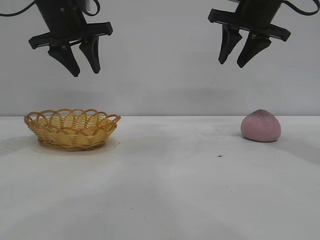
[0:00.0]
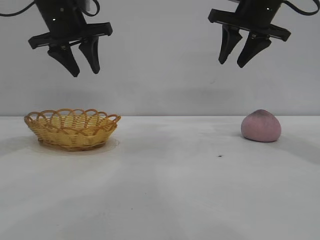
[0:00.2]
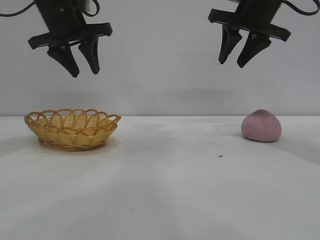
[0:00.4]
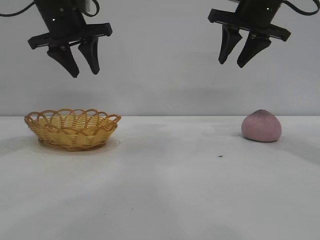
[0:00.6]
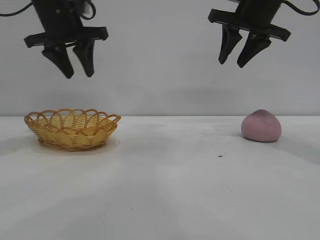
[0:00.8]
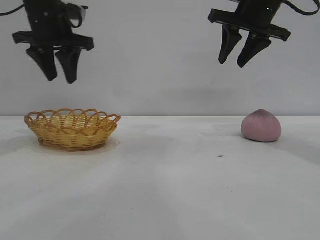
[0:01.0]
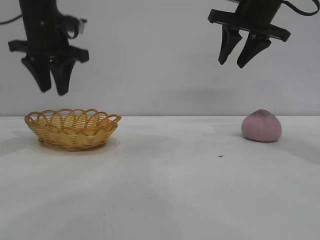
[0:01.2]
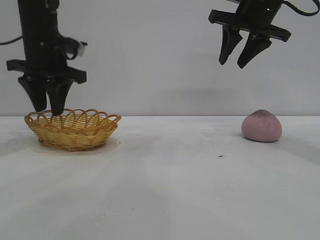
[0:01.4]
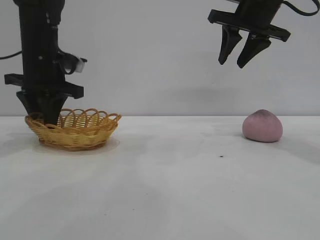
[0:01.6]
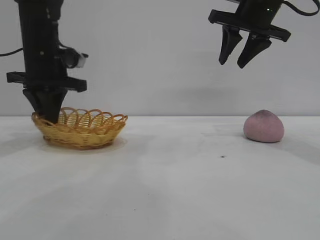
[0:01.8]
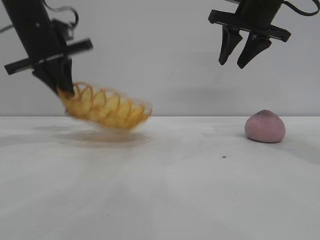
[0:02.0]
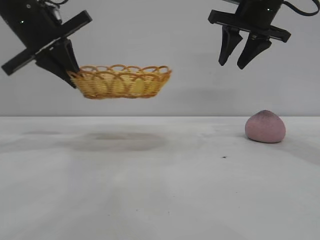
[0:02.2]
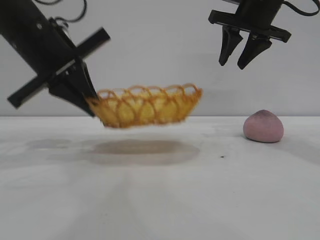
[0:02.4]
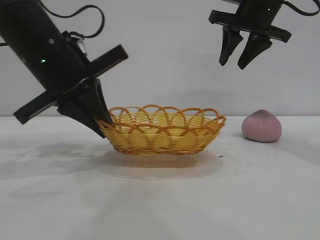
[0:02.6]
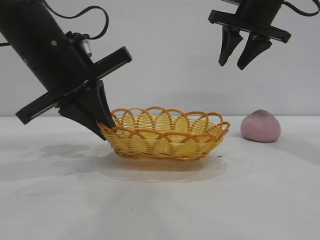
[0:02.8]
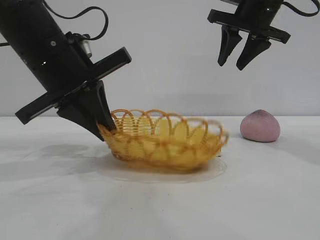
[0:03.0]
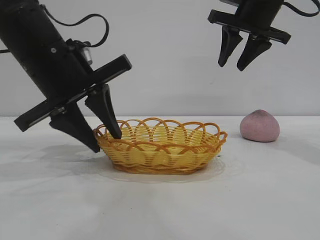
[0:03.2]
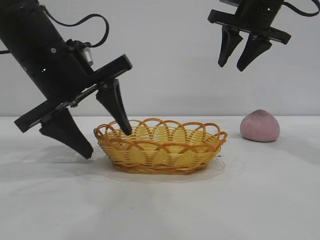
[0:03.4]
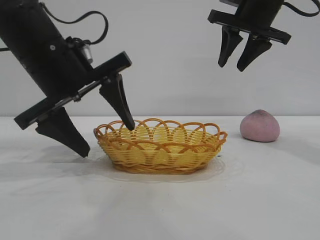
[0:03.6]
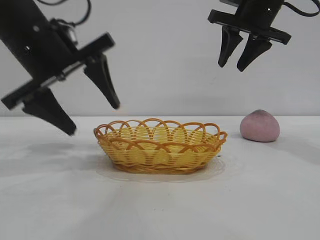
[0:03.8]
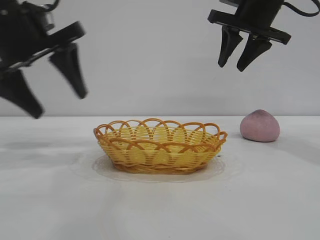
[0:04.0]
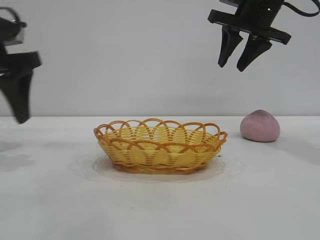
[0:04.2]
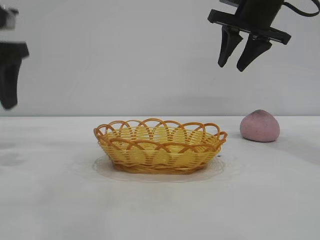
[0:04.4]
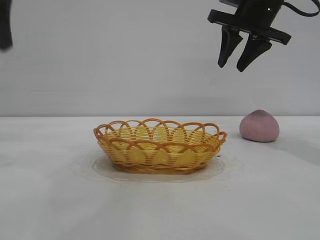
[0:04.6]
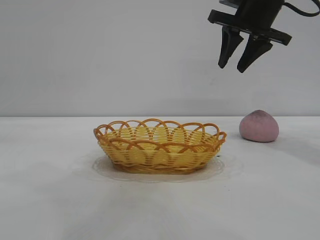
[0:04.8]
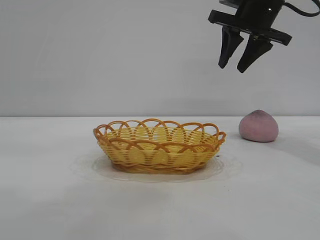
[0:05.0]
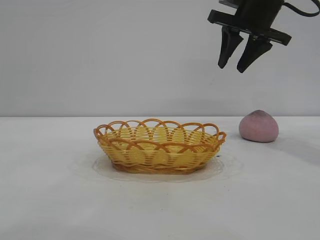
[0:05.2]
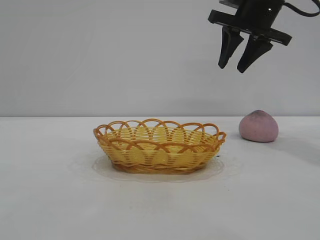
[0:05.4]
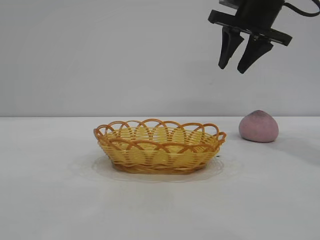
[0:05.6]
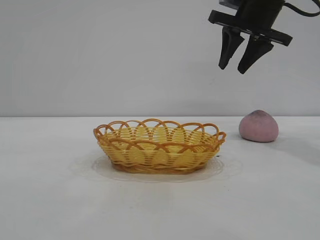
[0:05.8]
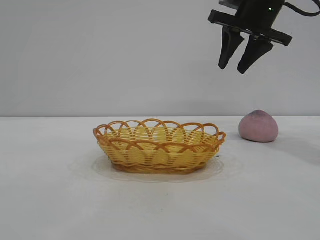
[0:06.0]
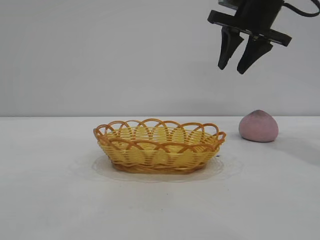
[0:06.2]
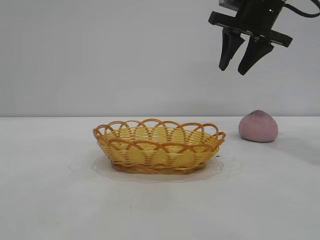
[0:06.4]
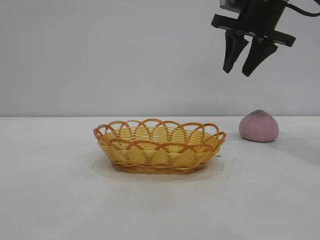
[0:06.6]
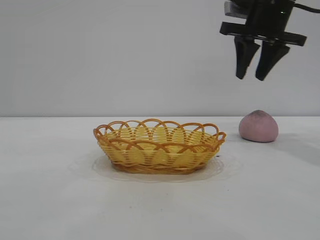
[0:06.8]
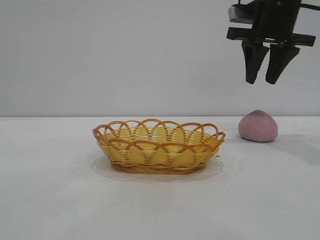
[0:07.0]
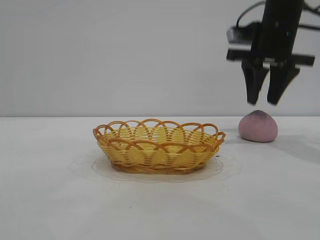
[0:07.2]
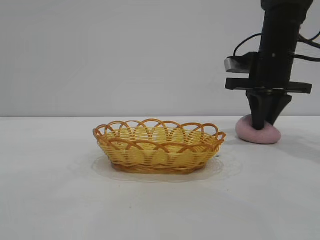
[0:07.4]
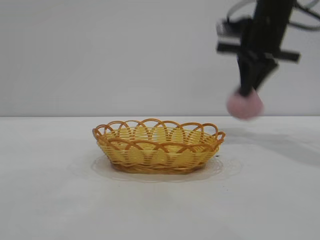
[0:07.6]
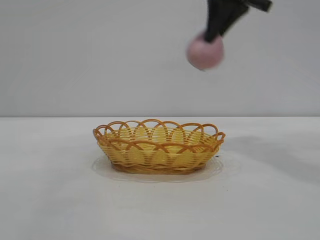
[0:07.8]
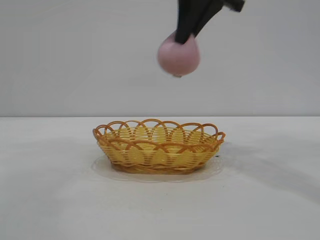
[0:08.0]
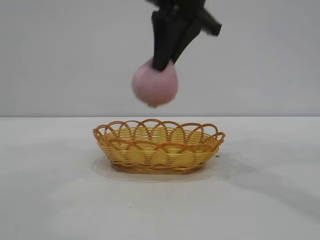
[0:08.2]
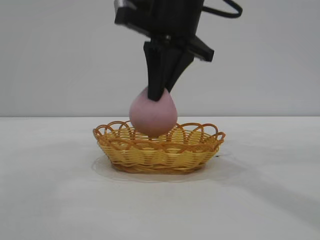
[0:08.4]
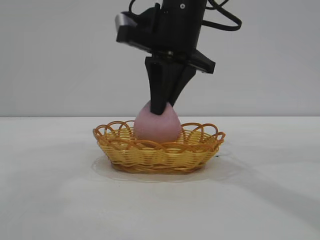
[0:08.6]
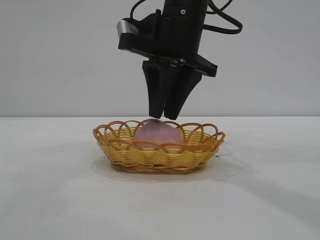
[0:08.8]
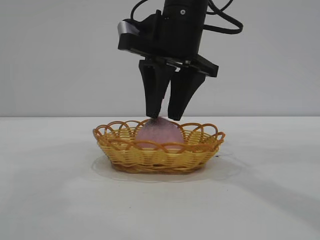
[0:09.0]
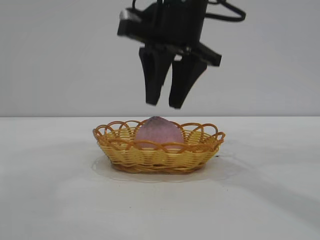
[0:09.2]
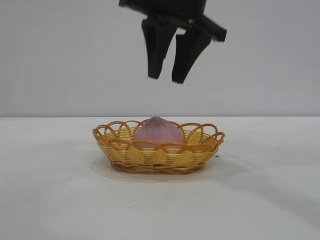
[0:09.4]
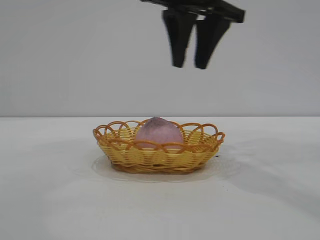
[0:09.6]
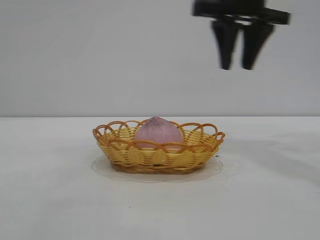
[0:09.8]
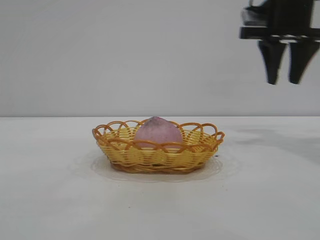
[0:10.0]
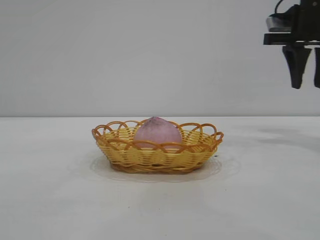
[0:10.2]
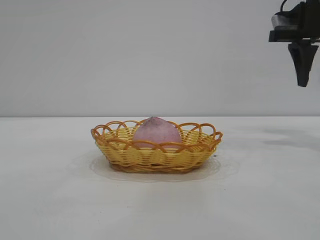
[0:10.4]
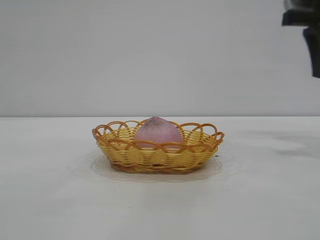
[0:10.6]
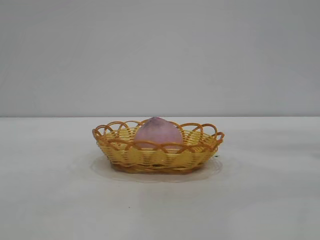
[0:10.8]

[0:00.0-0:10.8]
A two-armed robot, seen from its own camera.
Task of the whole recording: pick up the peach and put it into the basket.
Step, 0:00.0 to 0:03.8: Move the basket to the center of view.
Step, 0:04.0 to 0:07.6: Pick up the peach.
Step, 0:07.8 to 0:09.4: place the peach into the basket.
